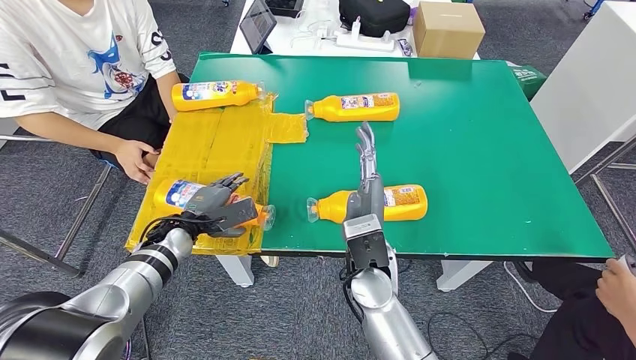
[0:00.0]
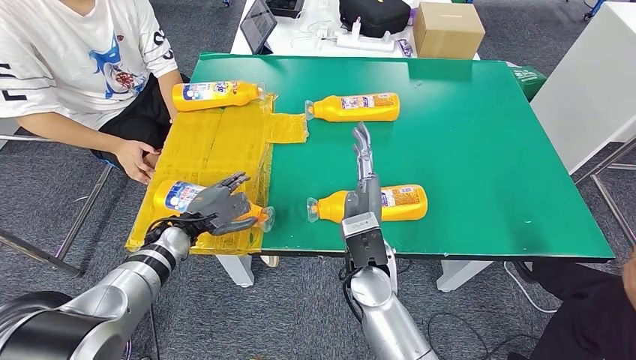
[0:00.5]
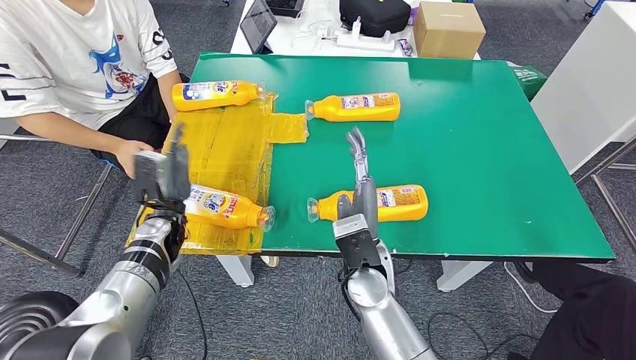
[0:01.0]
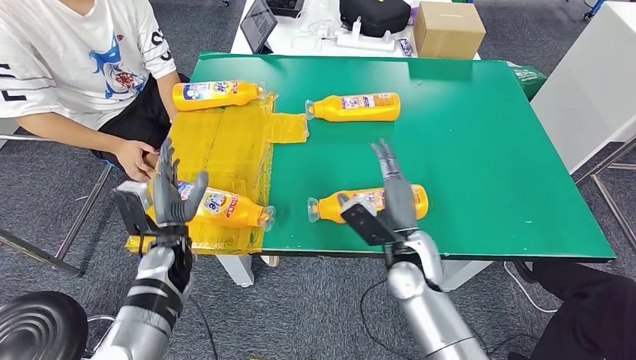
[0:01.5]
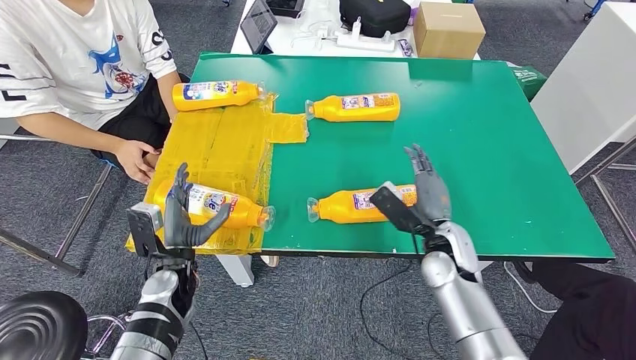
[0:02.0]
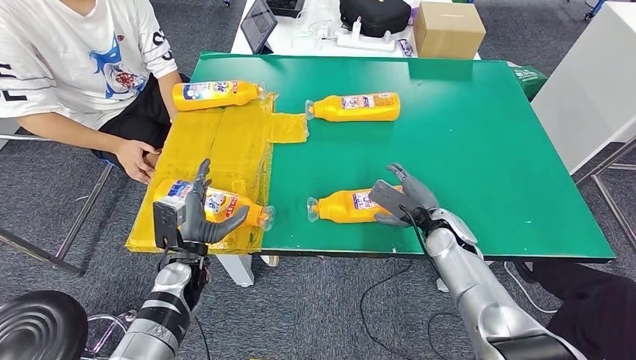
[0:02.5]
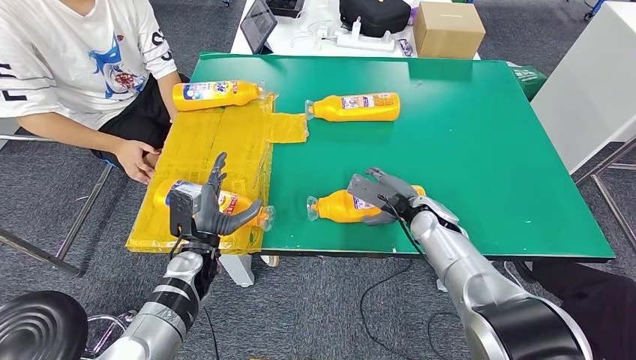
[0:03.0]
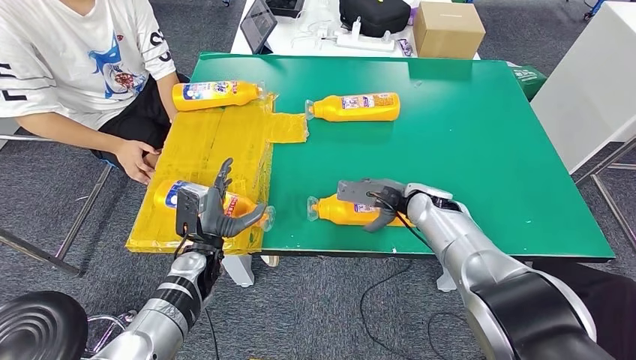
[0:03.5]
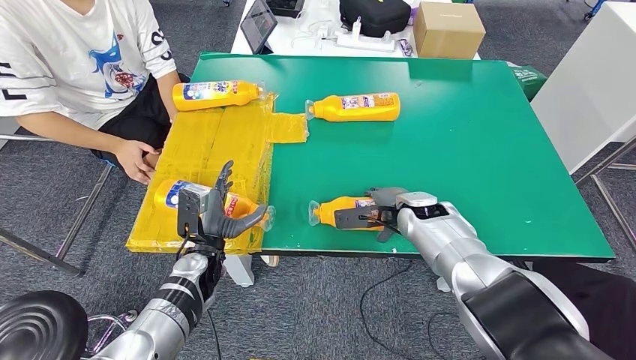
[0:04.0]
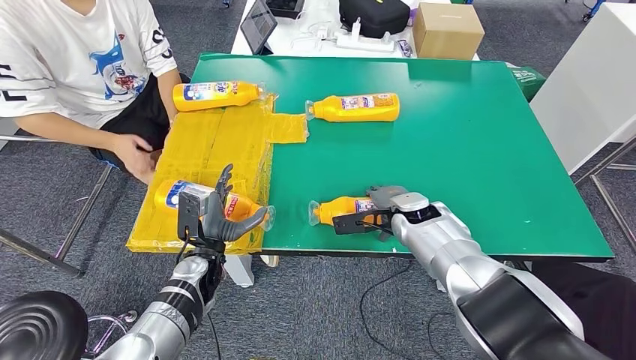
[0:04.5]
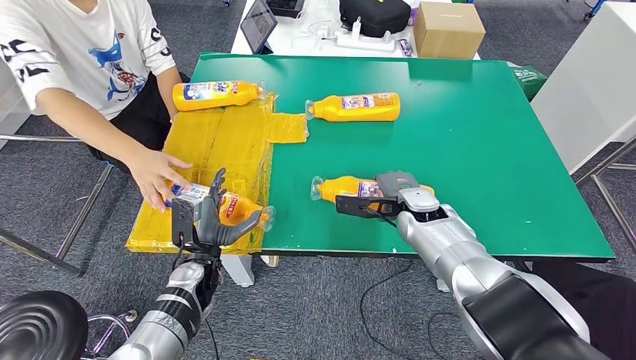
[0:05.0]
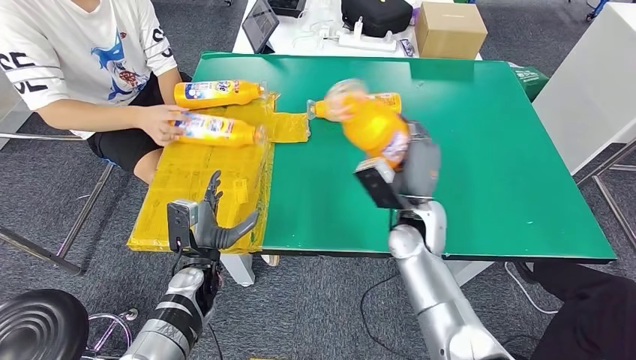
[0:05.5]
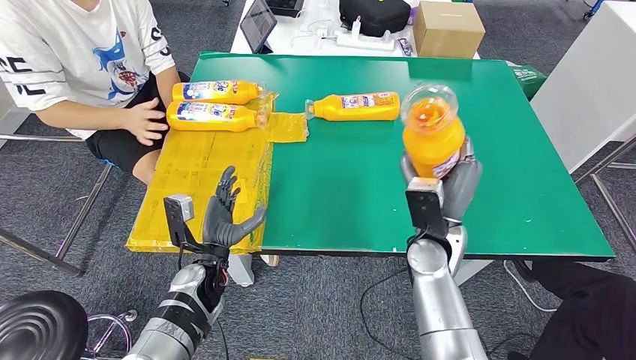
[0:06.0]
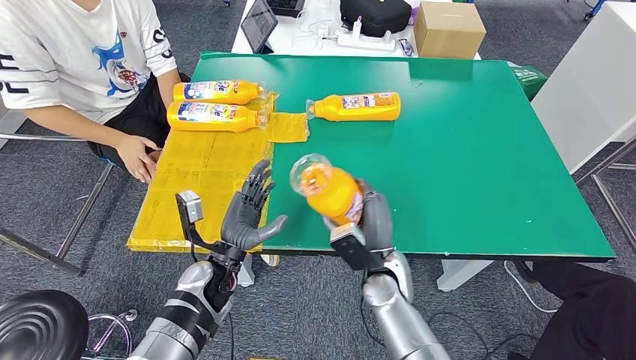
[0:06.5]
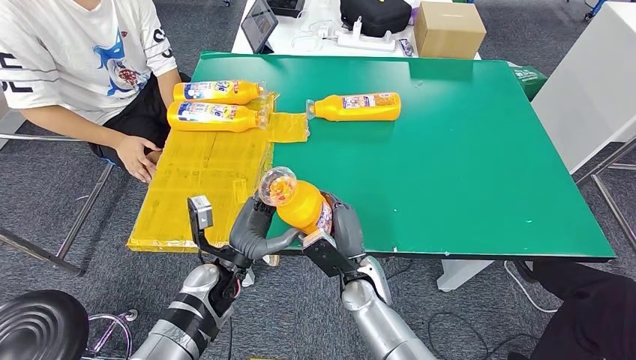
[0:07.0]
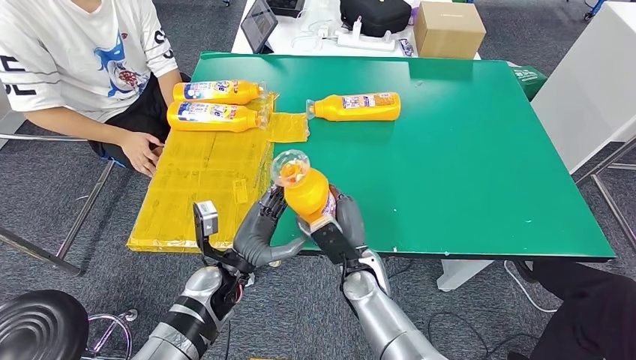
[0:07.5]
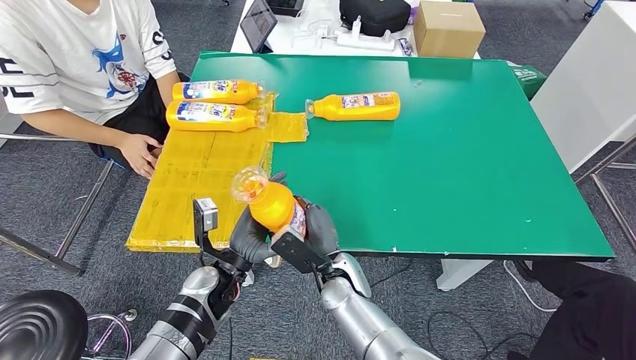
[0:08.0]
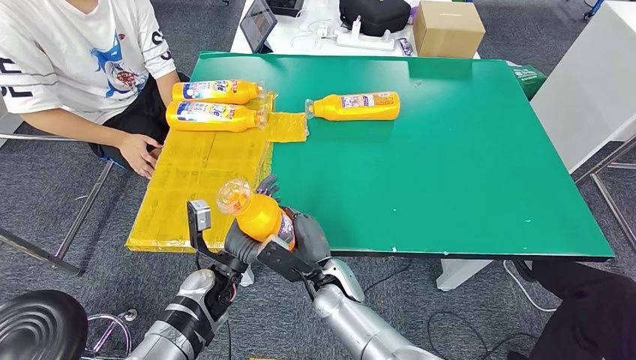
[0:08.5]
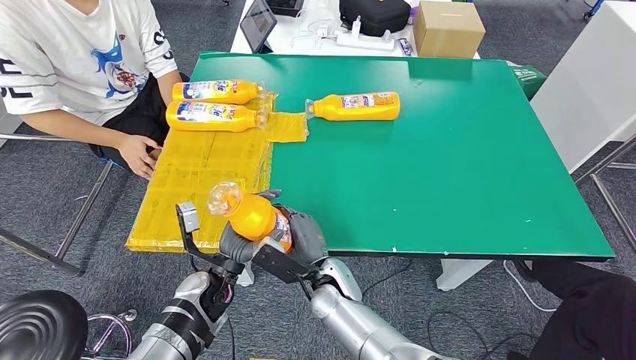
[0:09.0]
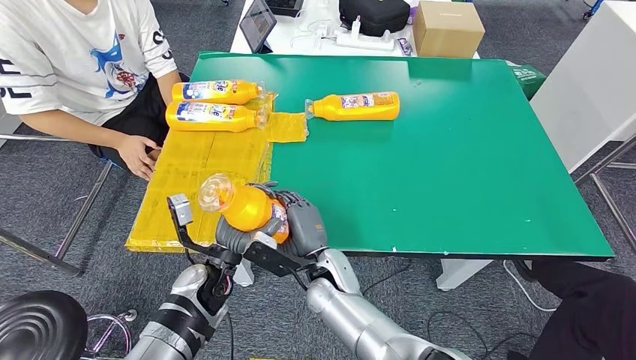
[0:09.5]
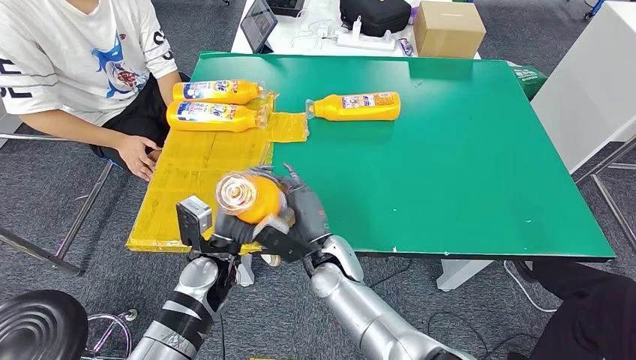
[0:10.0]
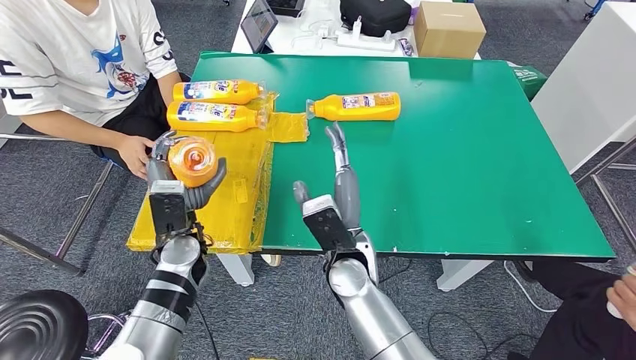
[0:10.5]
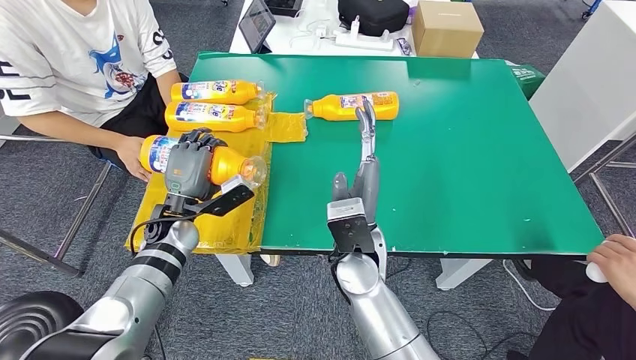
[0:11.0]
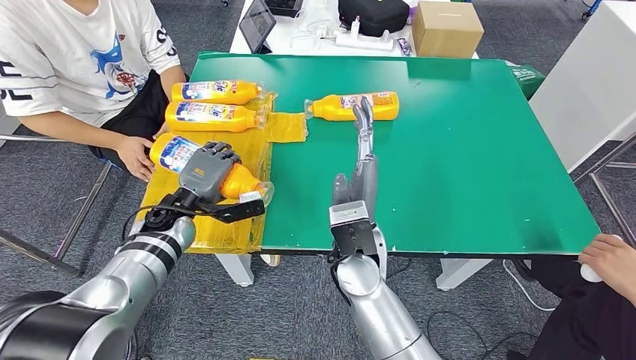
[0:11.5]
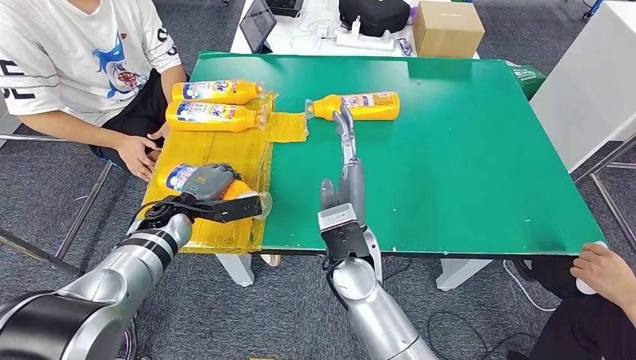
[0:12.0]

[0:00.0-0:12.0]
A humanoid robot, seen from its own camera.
Step, 0:00.5 to 0:07.5: Pick up the bottle from the table.
0:00.0 to 0:02.0: The left hand heads backward, covering some 10 cm. Meanwhile the right hand heads to the right, covering about 15 cm.
0:02.0 to 0:04.0: The left hand moves roughly 5 cm. The right hand travels forward by about 10 cm.
0:06.0 to 0:08.0: The right hand is displaced to the left and downward by some 20 cm.
0:10.0 to 0:12.0: The left hand heads forward and to the left, covering roughly 15 cm, while the right hand travels upward by some 10 cm.

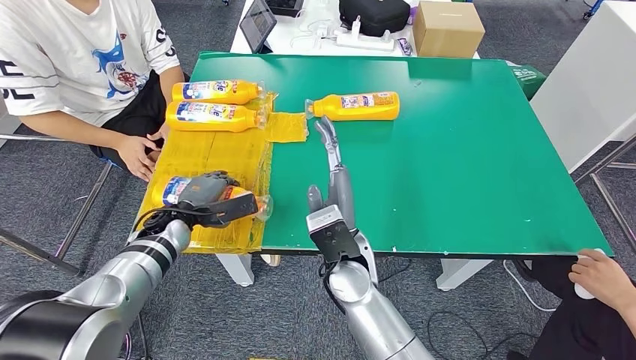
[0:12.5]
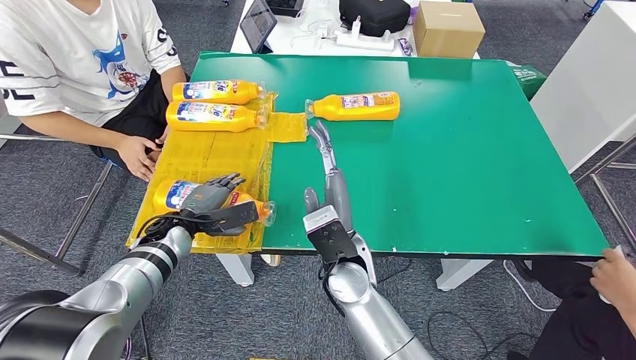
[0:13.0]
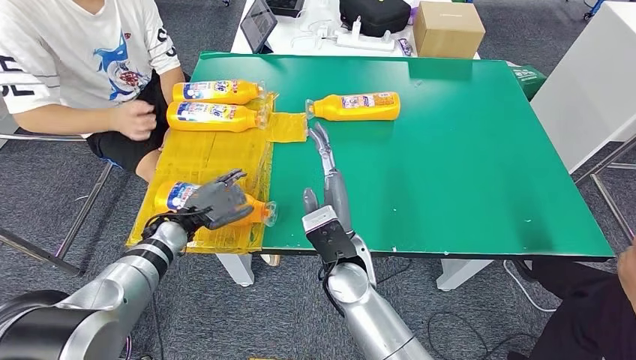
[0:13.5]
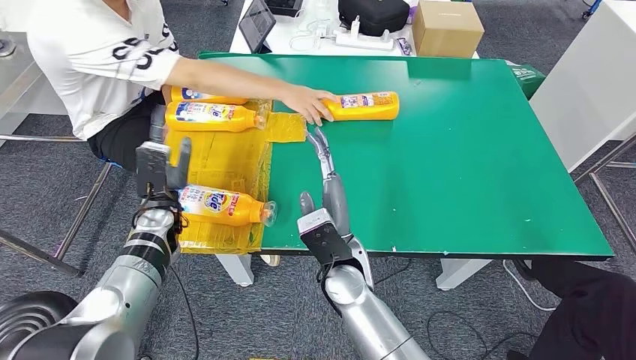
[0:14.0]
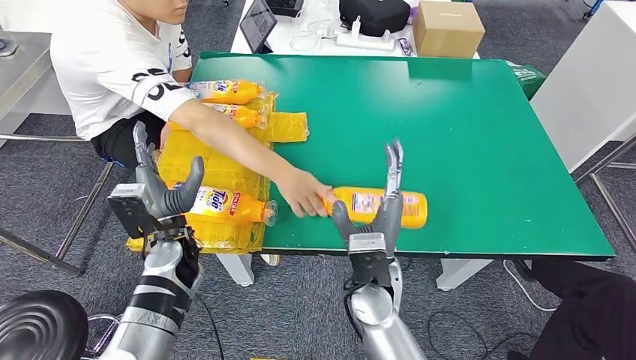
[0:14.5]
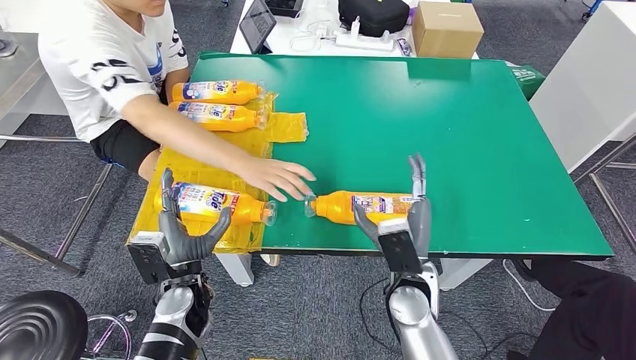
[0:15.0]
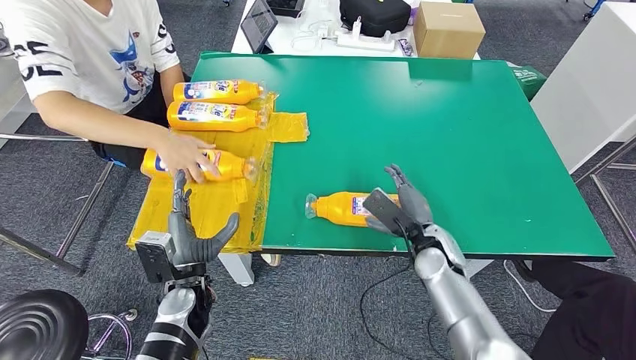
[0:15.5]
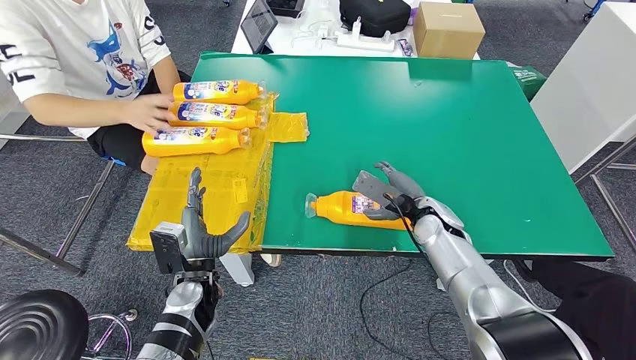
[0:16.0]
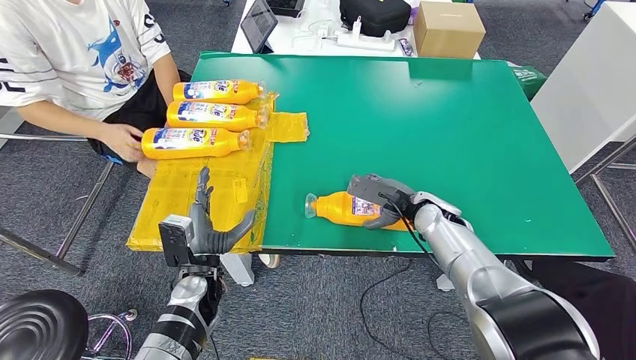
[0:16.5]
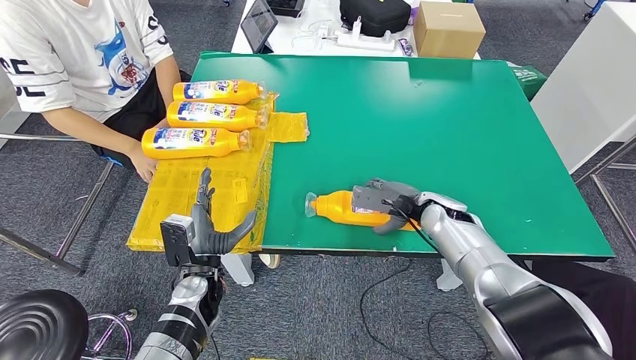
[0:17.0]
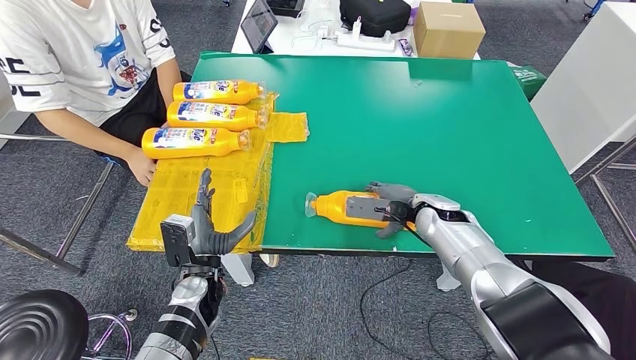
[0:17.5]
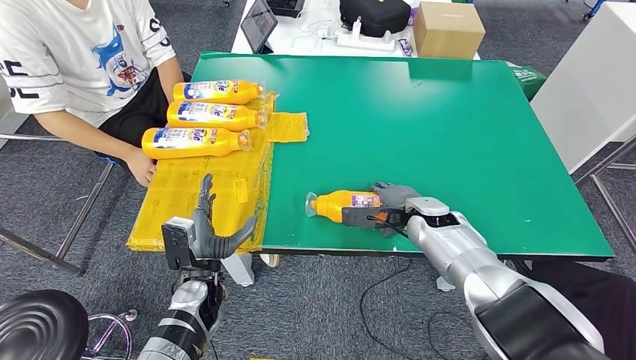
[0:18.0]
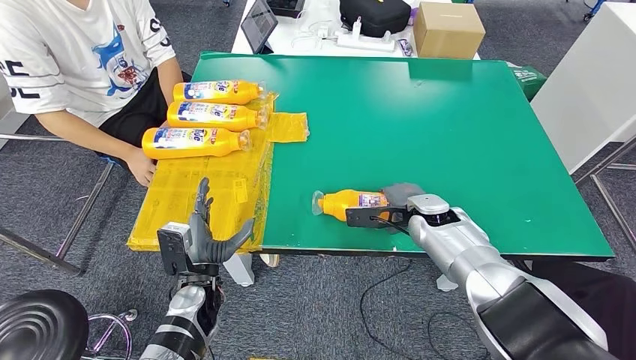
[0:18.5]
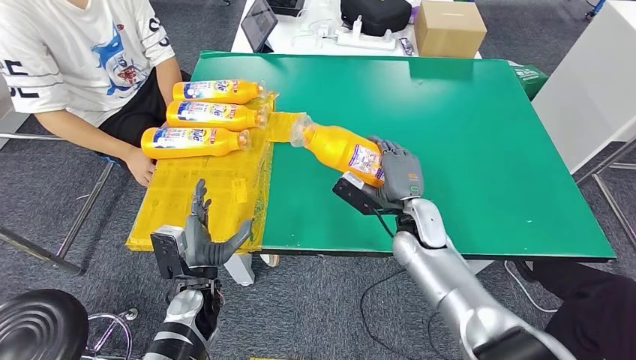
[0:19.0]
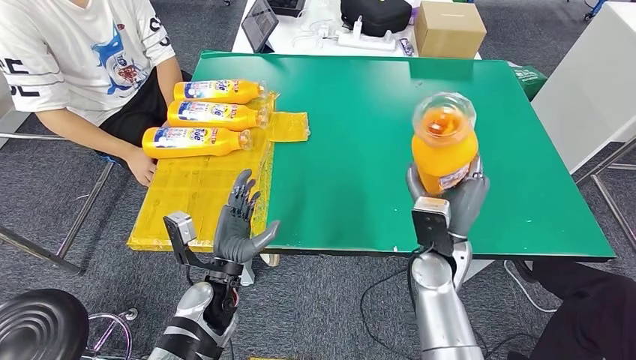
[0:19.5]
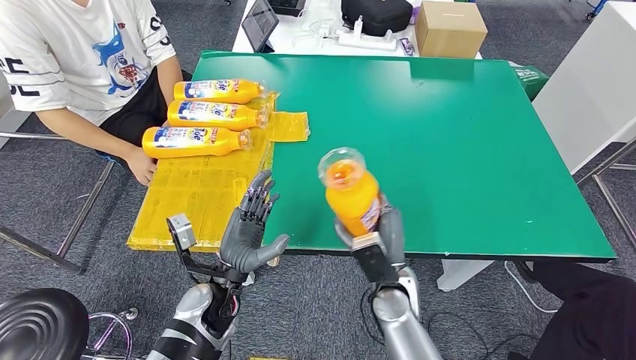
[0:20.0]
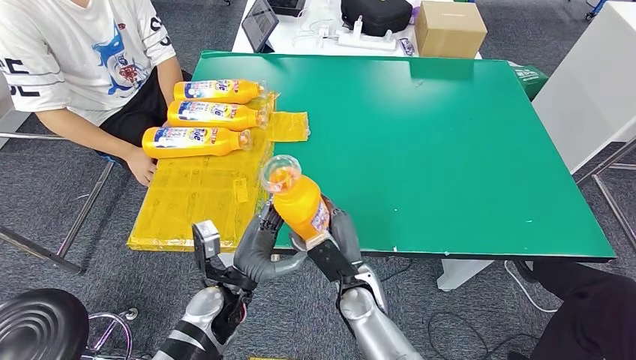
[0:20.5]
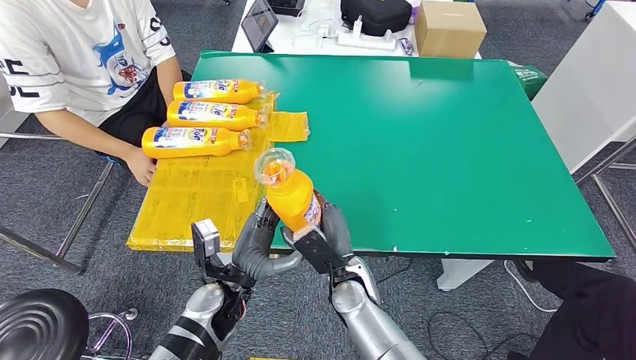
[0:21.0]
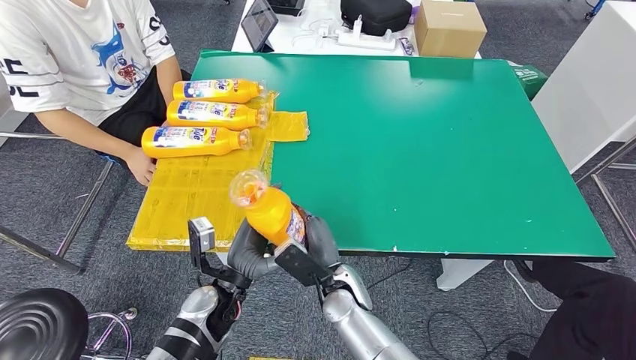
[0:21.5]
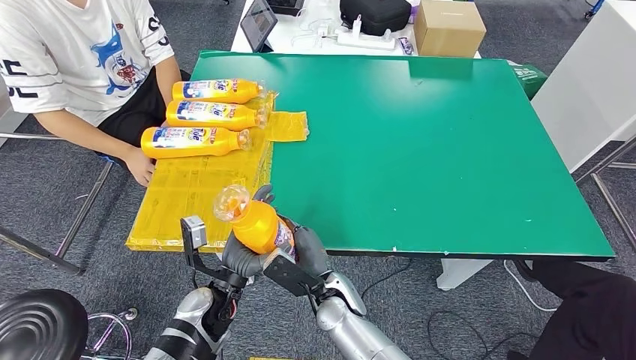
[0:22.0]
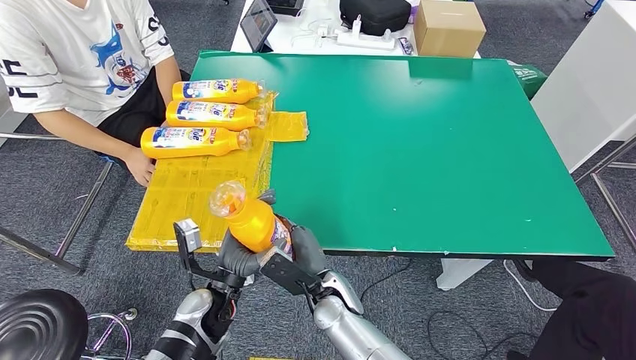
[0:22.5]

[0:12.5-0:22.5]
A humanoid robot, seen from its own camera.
Step, 0:13.0 to 0:20.0: Pick up the bottle from the table.
0:18.5 to 0:20.5: The right hand moves to the left and backward, approximately 20 cm, while the left hand goes roughly 5 cm to the right.
0:20.5 to 0:22.5: The right hand heads to the left, covering about 5 cm.
